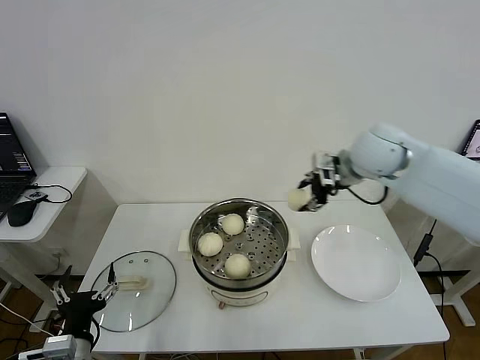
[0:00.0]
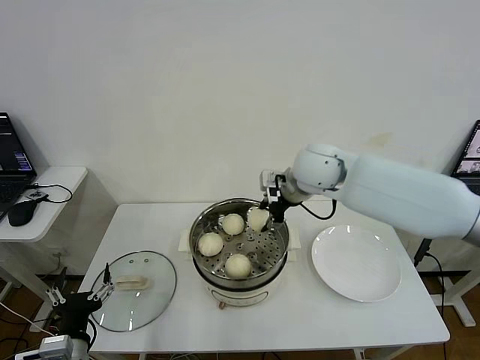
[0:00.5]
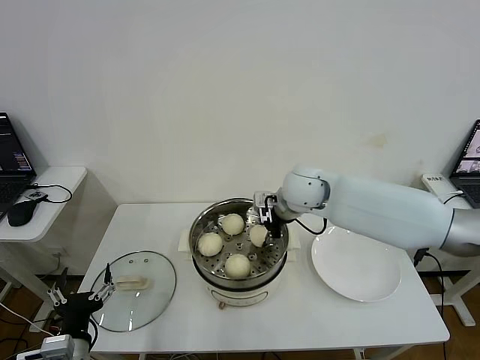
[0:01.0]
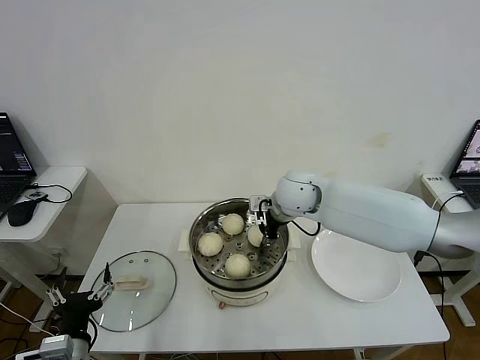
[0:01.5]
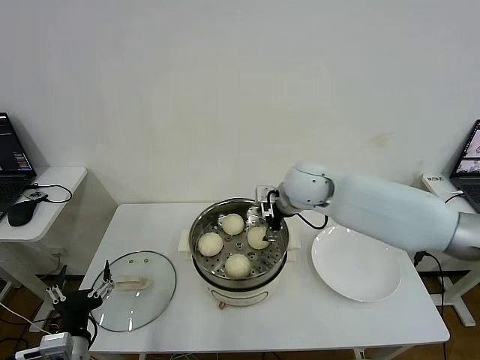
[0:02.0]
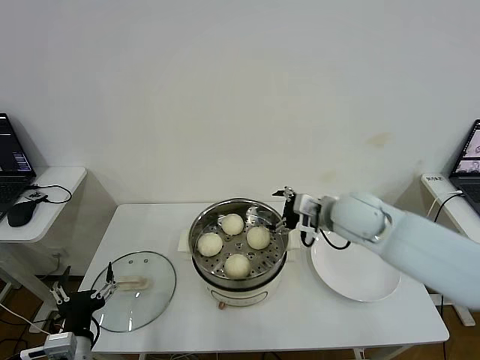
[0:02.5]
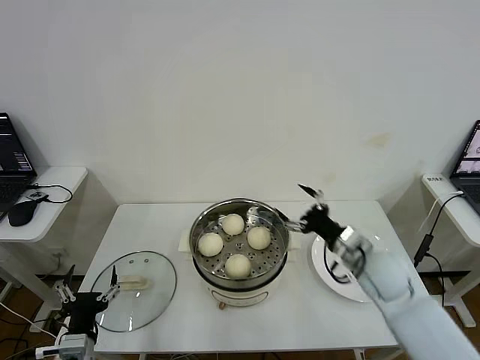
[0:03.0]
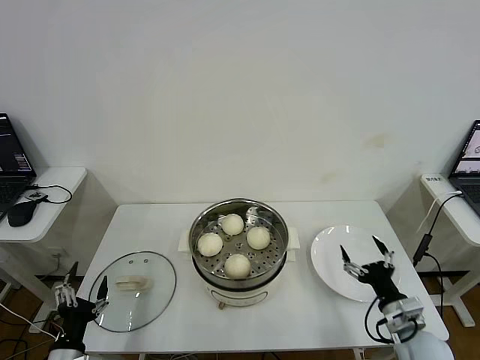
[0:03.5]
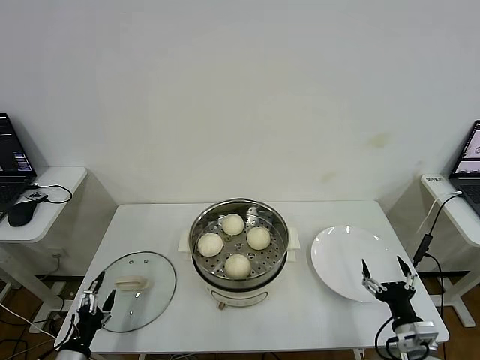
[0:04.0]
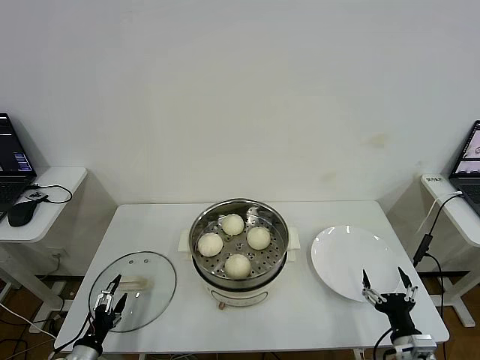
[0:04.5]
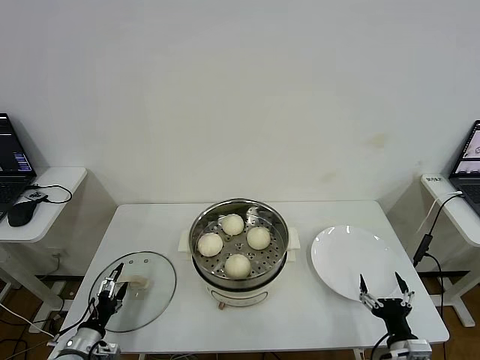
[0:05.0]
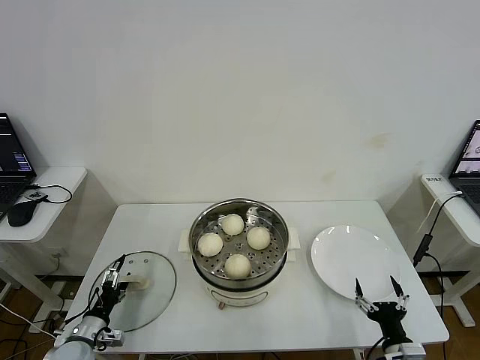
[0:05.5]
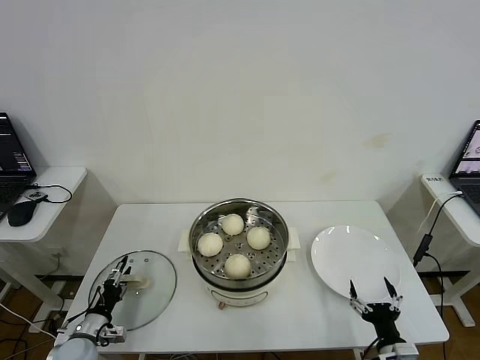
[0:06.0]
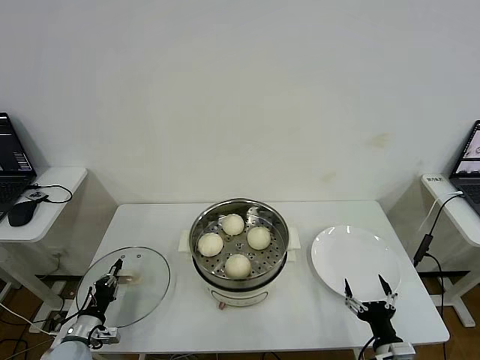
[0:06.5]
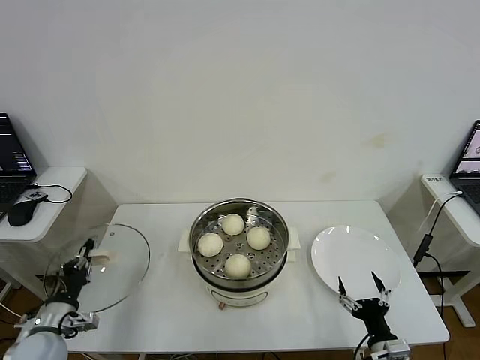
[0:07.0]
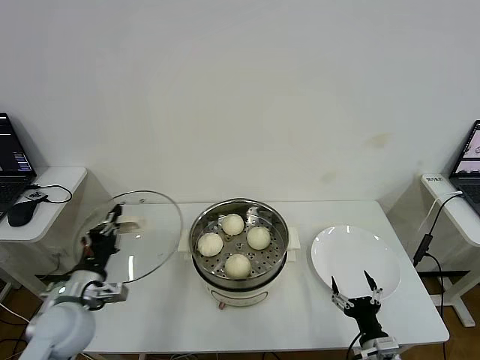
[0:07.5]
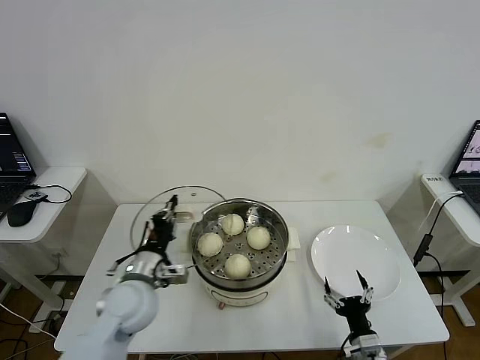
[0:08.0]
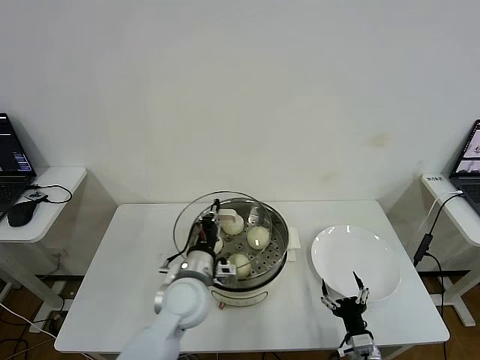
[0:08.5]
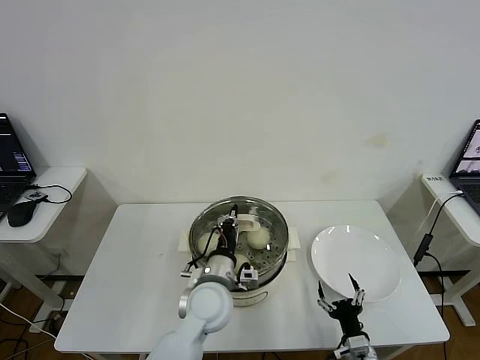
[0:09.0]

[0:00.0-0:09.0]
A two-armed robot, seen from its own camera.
Step, 0:00.0 to 0:01.5: Place the baozi on the steamer with right gripper.
Step, 0:02.0 to 0:06.5: Grasp the pot lid with left gripper.
0:00.0 to 0:02.0: The right gripper heads to the left and downward, covering approximately 15 cm, and opens its fingers.
0:02.0 to 0:04.5: The right gripper is displaced backward, downward and to the right by roughly 50 cm; the left gripper moves downward and to the left, about 15 cm.
0:04.5 to 0:07.0: The left gripper is displaced upward and forward by some 10 cm, and closes.
0:07.0 to 0:09.0: The right gripper moves approximately 5 cm. Meanwhile the left gripper heads to the right, covering approximately 35 cm.

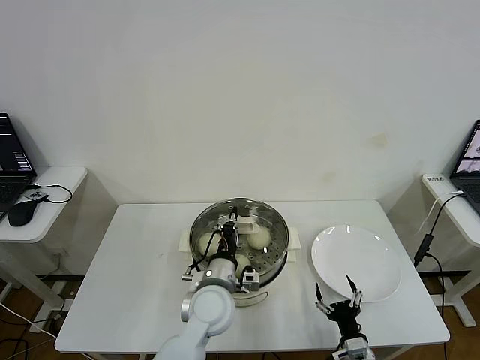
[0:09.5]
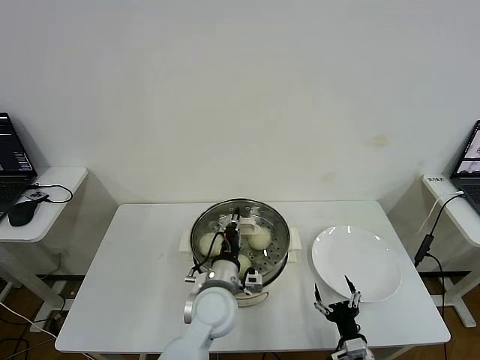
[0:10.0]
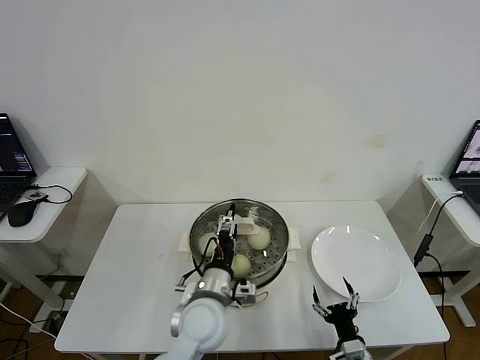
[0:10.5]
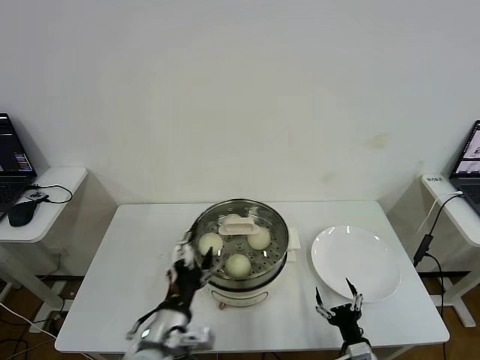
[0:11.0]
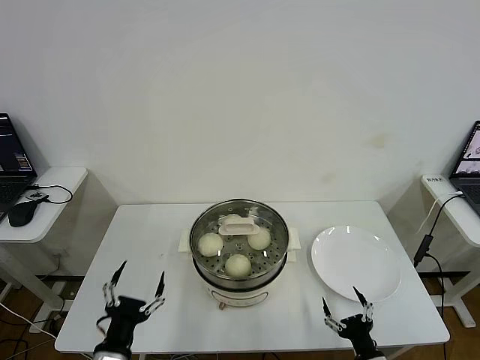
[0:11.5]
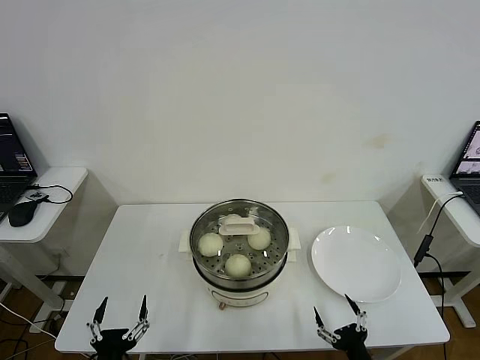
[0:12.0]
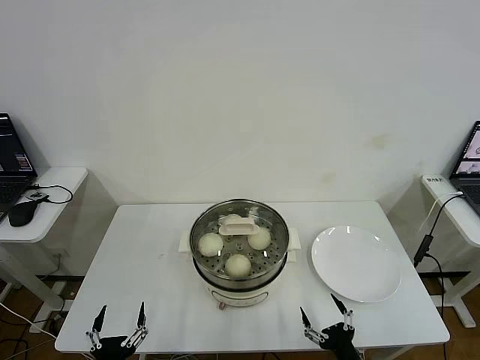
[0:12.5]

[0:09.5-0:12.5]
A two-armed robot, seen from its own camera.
0:09.5 to 0:11.0: The left gripper moves backward and to the left, some 15 cm, and opens its fingers.
0:11.0 to 0:12.5: The right gripper shifts approximately 5 cm backward. Meanwhile the left gripper travels to the left, downward and backward by approximately 20 cm.

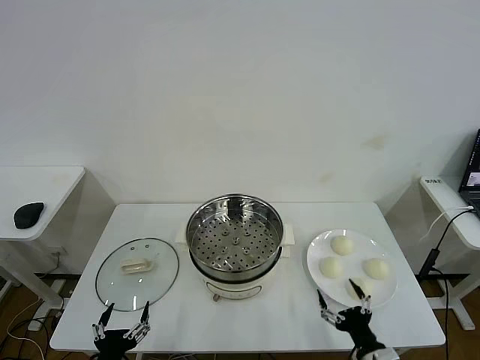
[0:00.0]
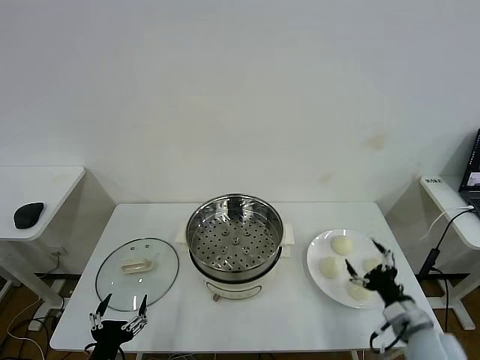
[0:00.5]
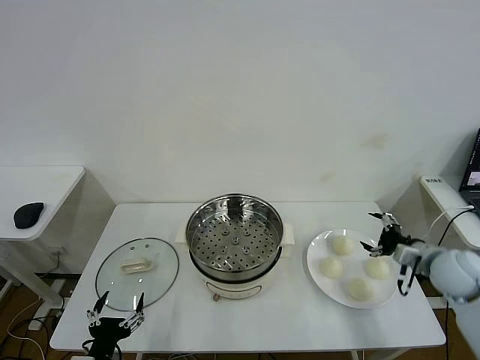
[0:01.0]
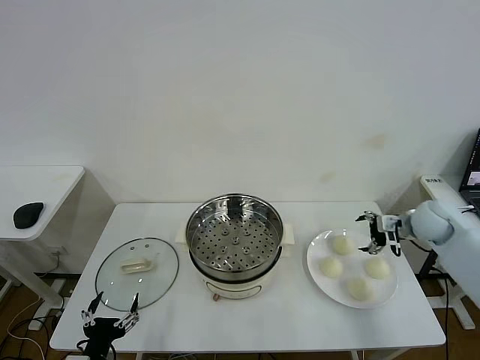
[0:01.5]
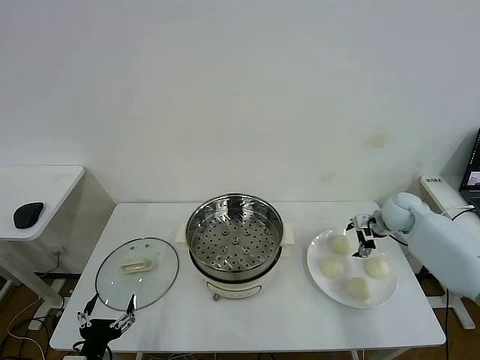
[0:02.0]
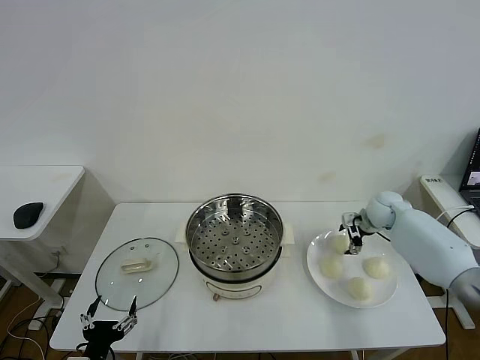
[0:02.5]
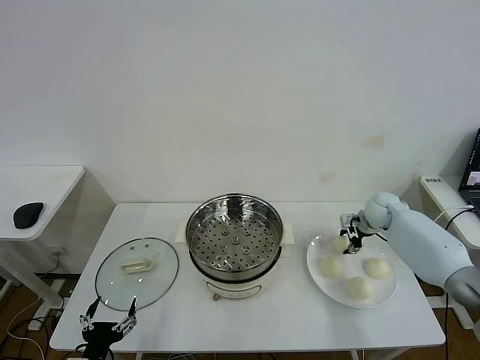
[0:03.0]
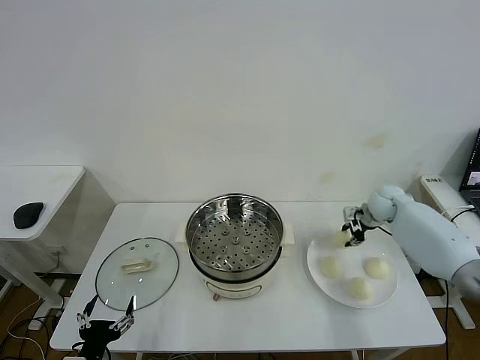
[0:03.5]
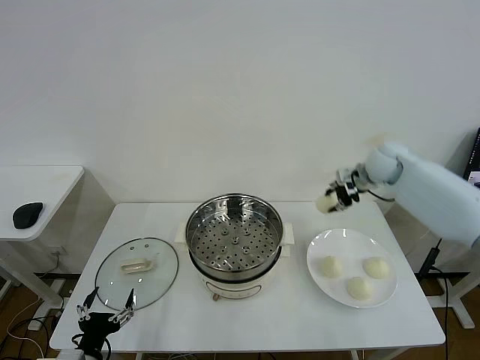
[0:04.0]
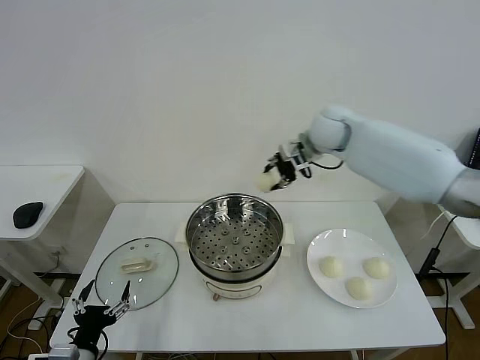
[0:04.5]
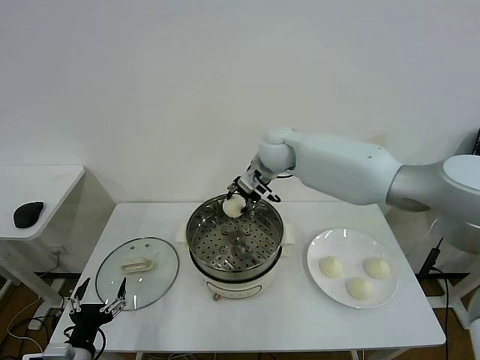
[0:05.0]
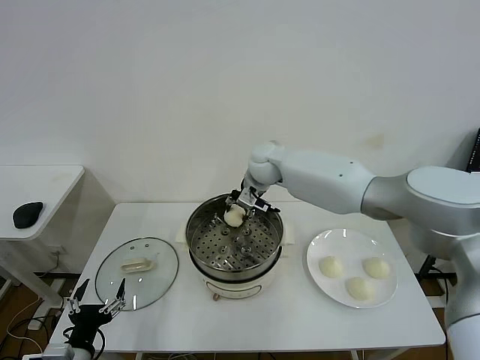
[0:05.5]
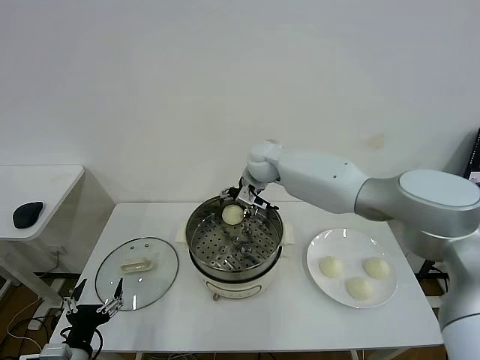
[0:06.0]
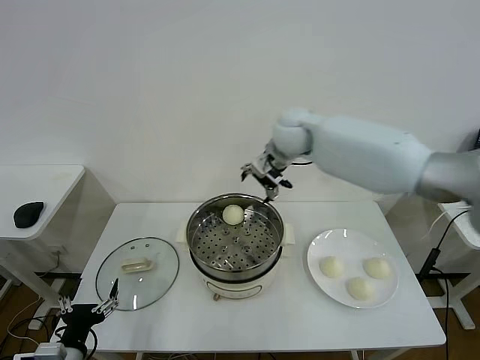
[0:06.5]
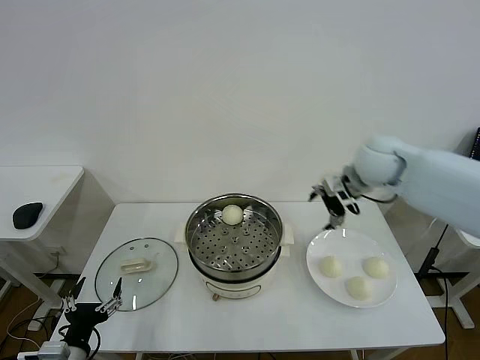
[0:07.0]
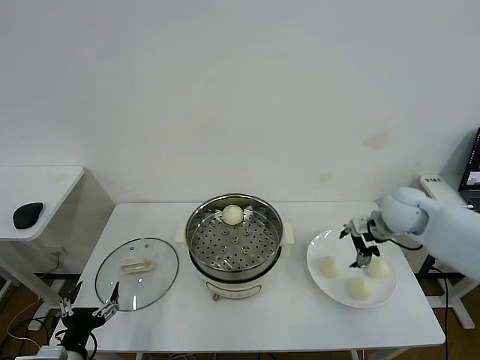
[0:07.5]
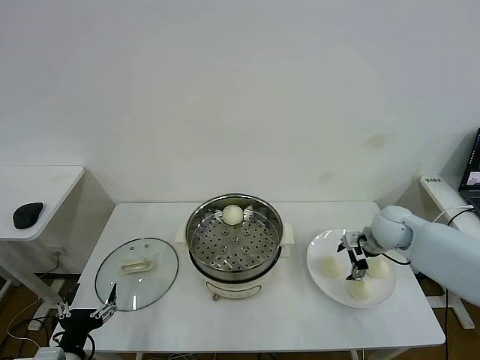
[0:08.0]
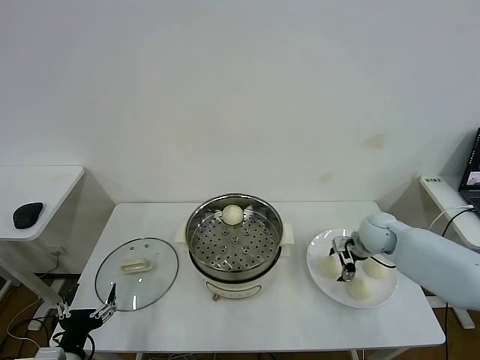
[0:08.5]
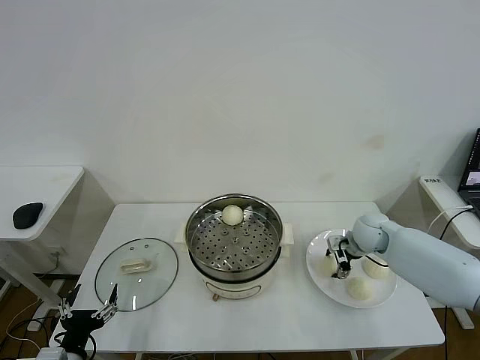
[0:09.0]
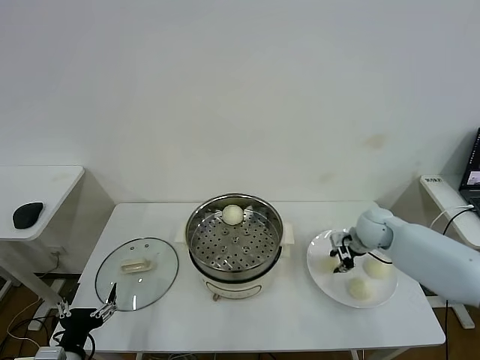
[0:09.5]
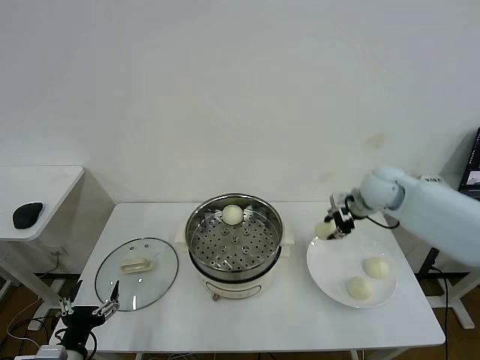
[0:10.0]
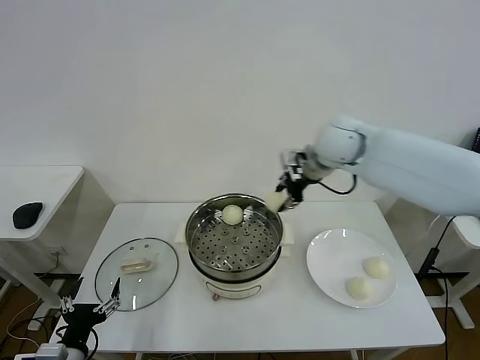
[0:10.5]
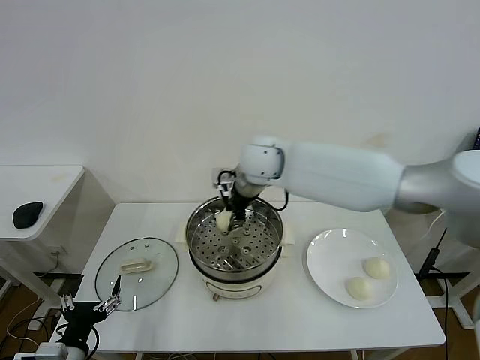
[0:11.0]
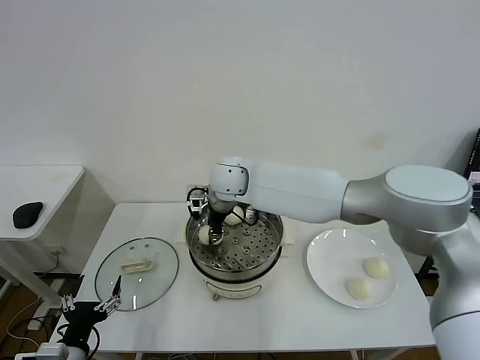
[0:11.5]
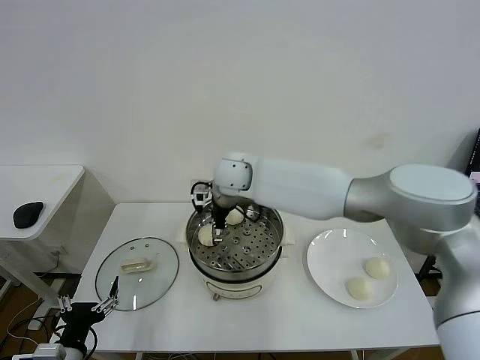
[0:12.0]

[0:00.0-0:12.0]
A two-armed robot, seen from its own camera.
Step, 0:00.0 to 0:03.0: Grasp the baozi in the plate with right gripper.
Step, 0:03.5 to 0:05.5: Place the baozi on the steamer with right gripper.
Step, 0:06.0 to 0:09.0: Grasp the baozi in the plate with right gripper.
Step, 0:10.0 to 0:11.5: Place the baozi on the steamer with right gripper.
0:02.0 to 0:04.0: The right gripper heads upward and to the left, covering approximately 20 cm, and closes.
0:04.0 to 0:06.0: The right gripper goes roughly 25 cm to the left, and opens.
0:06.0 to 0:08.0: The right gripper shifts about 35 cm to the right, downward and backward.
0:08.0 to 0:10.0: The right gripper heads upward and to the left, covering some 15 cm, and closes its fingers.
0:10.0 to 0:12.0: The right gripper moves to the left, some 30 cm, and opens.

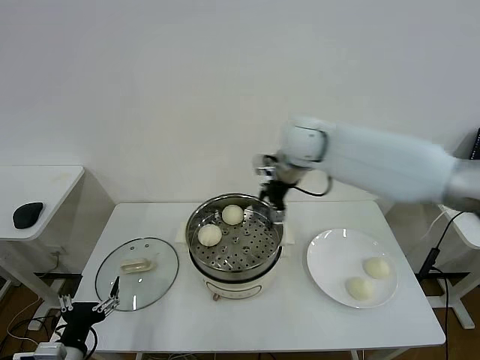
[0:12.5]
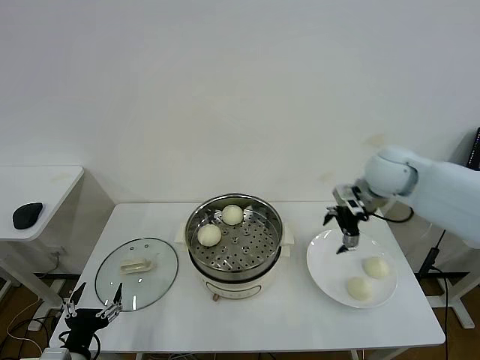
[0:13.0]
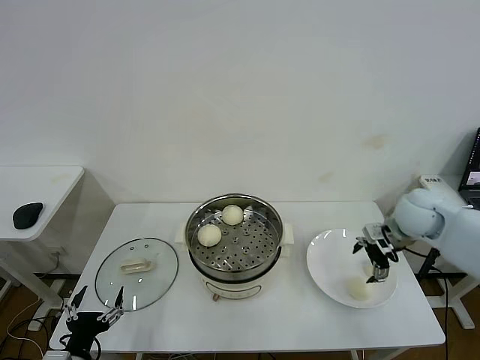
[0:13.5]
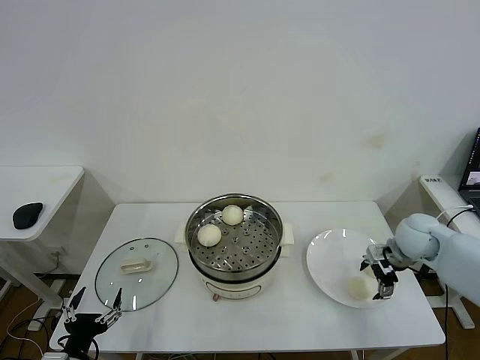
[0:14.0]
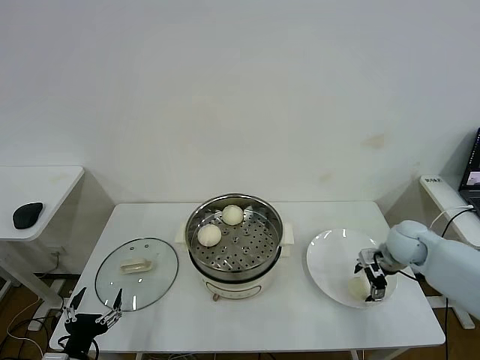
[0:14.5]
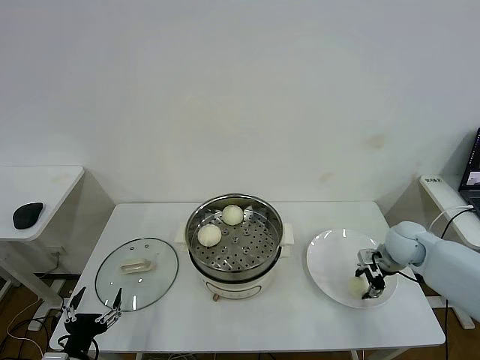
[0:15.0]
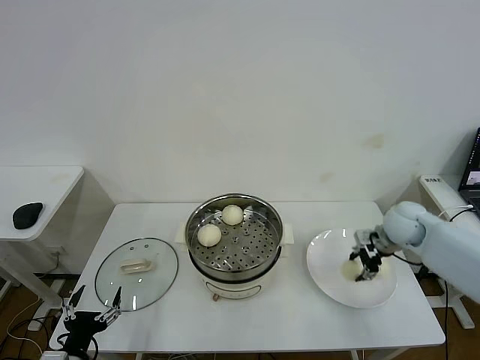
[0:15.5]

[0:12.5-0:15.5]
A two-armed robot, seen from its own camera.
Step, 0:12.5 to 0:15.0: Grasp the baozi in the plate with right gripper.
0:12.5 to 0:14.0: The right gripper heads to the right, downward and backward, covering approximately 30 cm.
0:14.0 to 0:15.5: The right gripper shifts by some 5 cm, and closes up.
